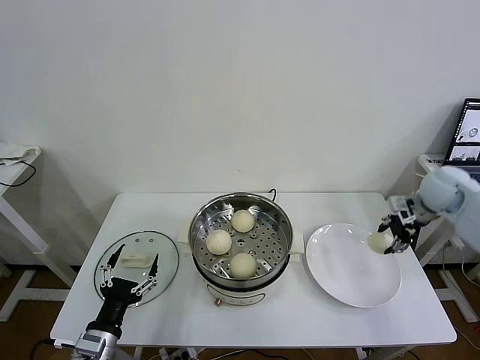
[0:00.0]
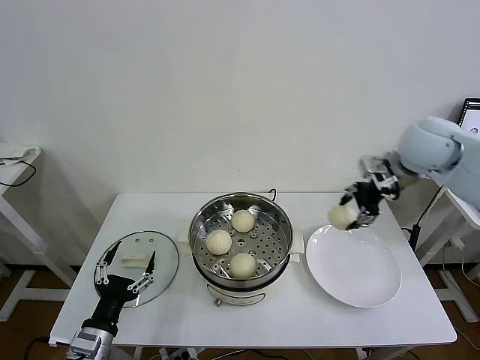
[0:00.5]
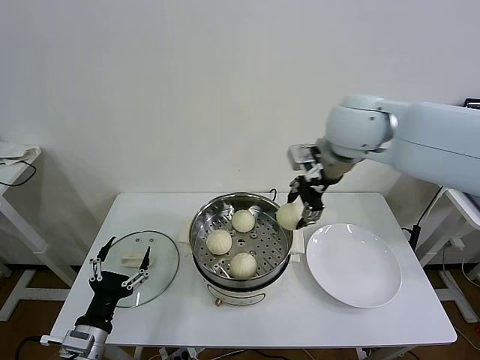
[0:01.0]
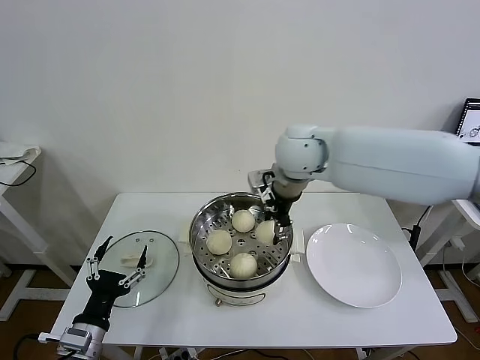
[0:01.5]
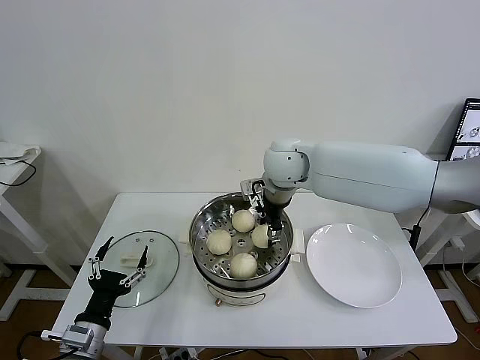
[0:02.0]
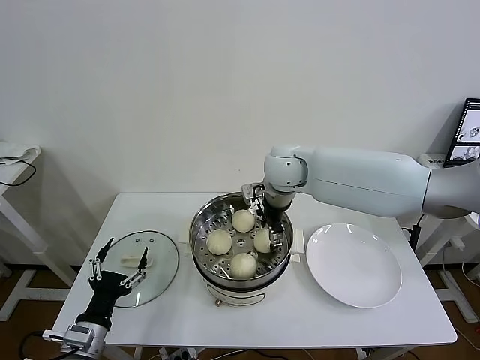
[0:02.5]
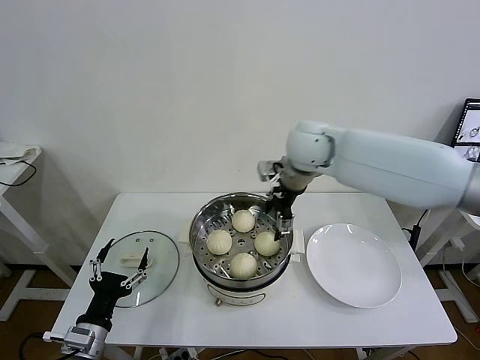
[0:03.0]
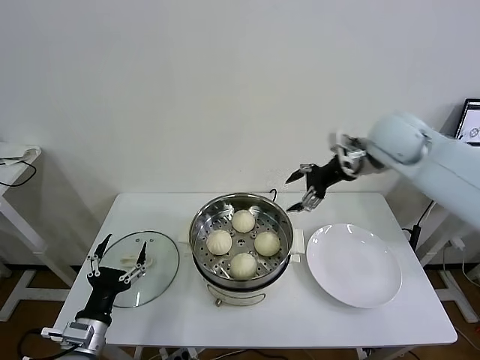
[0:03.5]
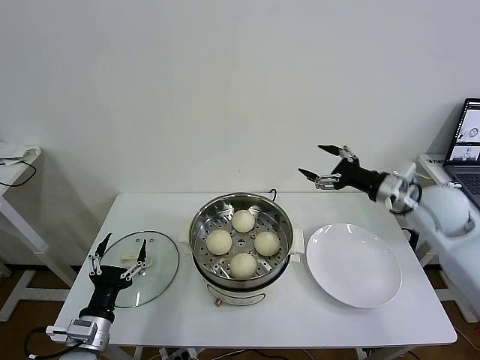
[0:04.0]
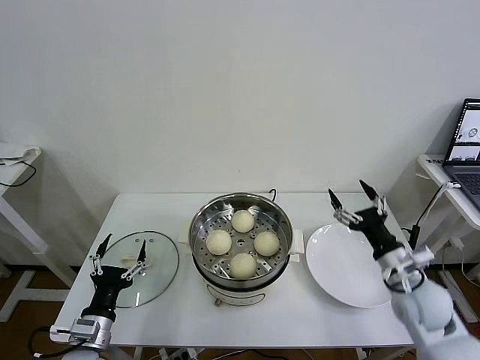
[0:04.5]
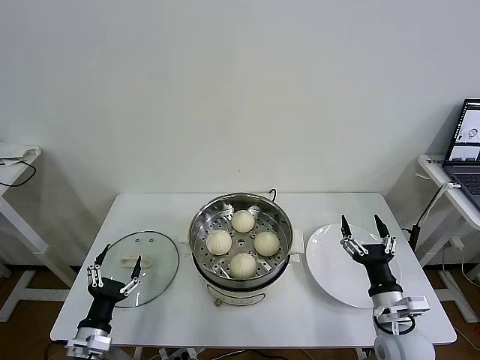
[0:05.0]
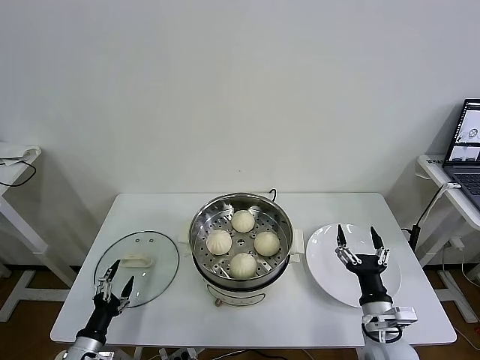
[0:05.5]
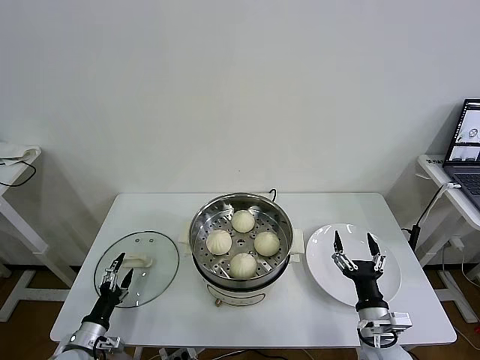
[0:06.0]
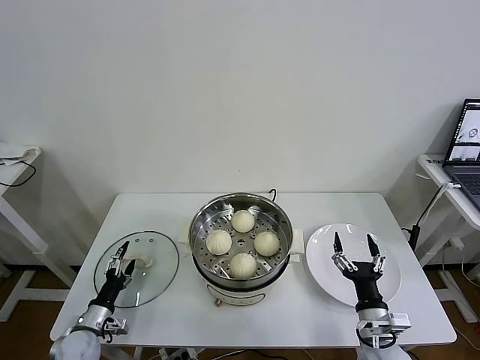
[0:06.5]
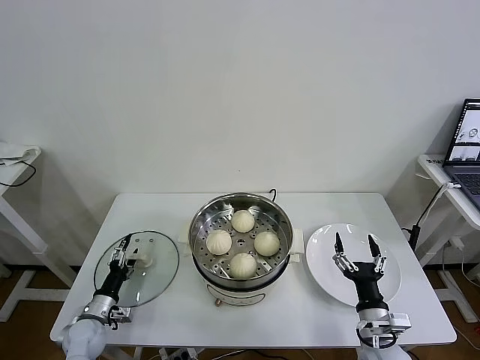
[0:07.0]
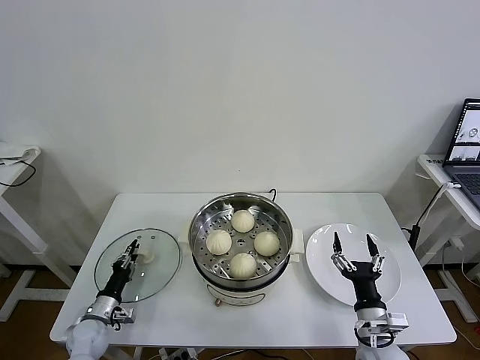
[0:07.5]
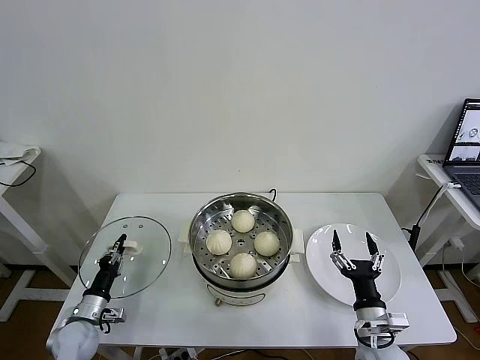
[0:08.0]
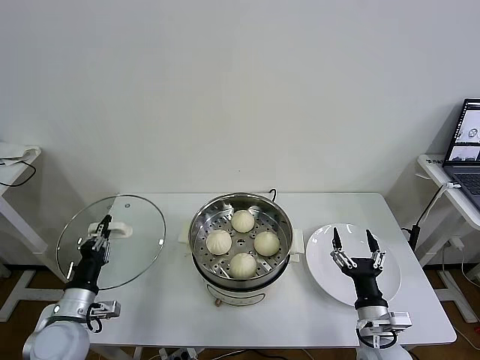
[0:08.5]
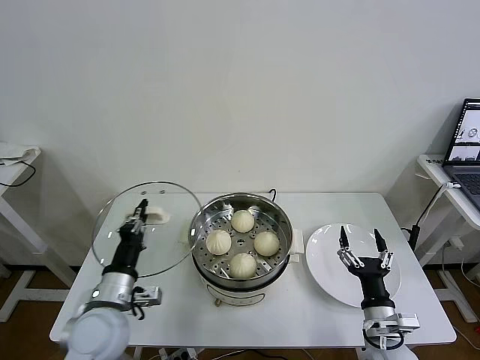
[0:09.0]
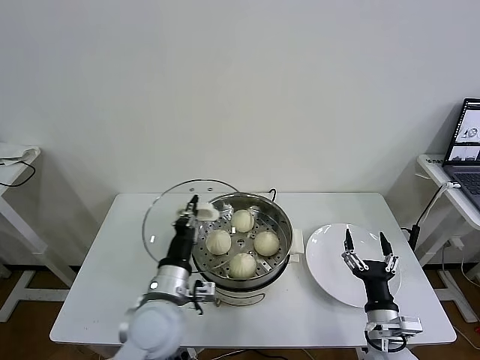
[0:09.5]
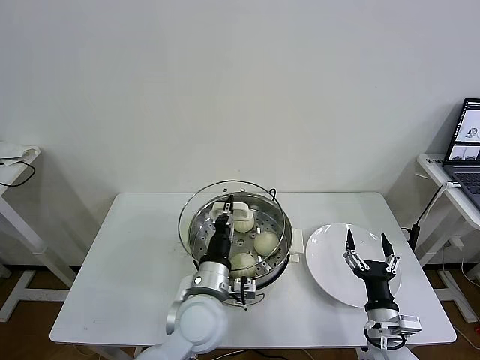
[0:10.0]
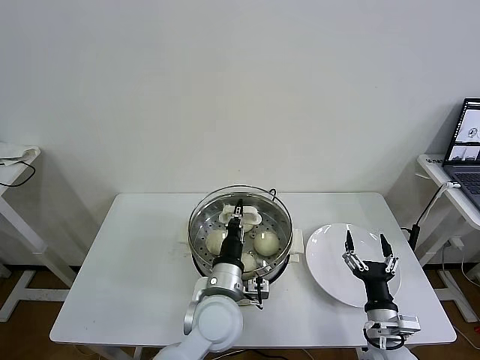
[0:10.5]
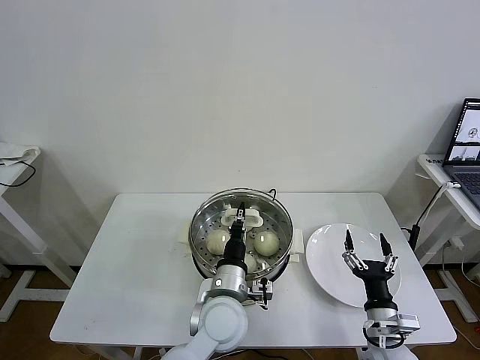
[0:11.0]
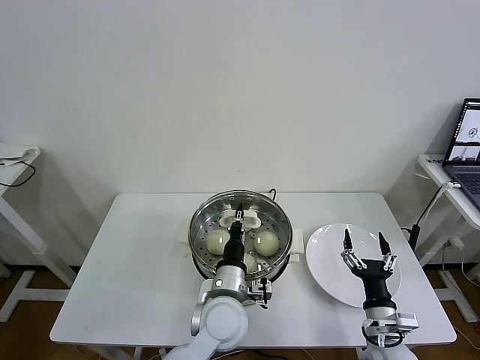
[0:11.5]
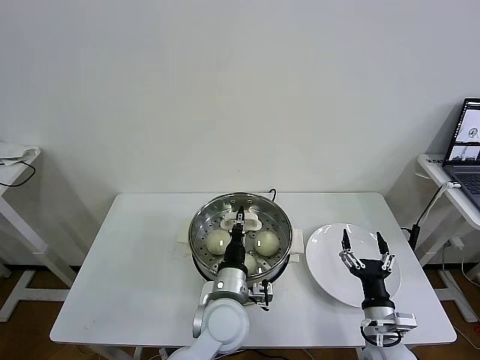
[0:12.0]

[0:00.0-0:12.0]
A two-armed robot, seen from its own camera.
Task of the whole recording: take steamed baozi put them in steamer then cover it.
Step, 0:00.0 to 0:02.5: Place the baozi on the steamer with right gripper.
Step, 0:03.0 to 0:07.5: Grasp the pot lid with left gripper.
0:00.0 to 0:02.0: The right gripper shifts roughly 35 cm to the left.
0:02.0 to 0:04.0: The right gripper shifts about 30 cm to the right, and opens.
0:04.0 to 0:06.0: The left gripper shifts approximately 15 cm downward and to the left, while the right gripper is displaced downward and backward by about 30 cm.
0:06.0 to 0:08.0: The left gripper travels forward by about 5 cm, and closes its fingers.
0:08.0 to 0:10.0: The left gripper shifts approximately 35 cm to the right and upward.
0:10.0 to 0:12.0: The left gripper ends up some 5 cm from where it was.

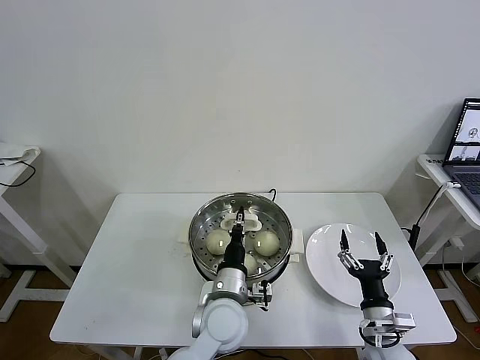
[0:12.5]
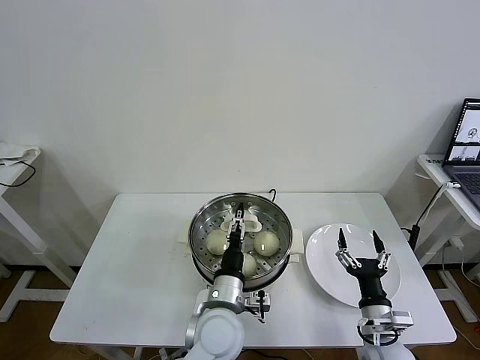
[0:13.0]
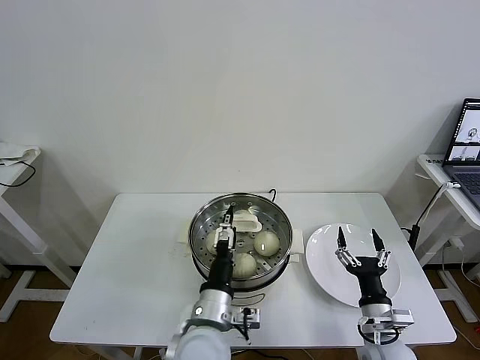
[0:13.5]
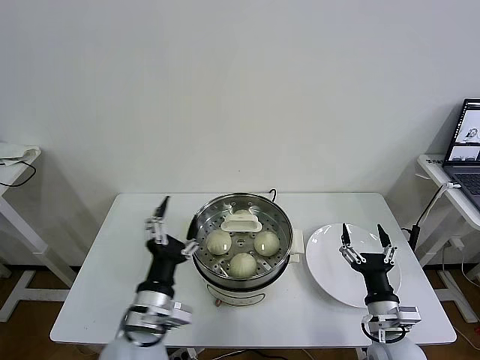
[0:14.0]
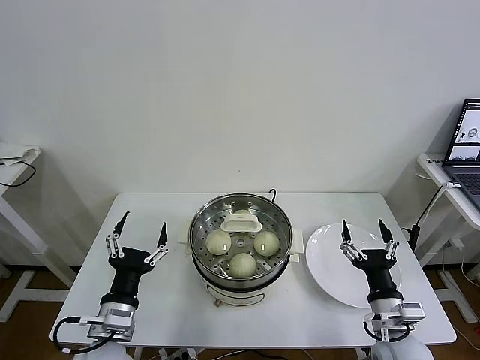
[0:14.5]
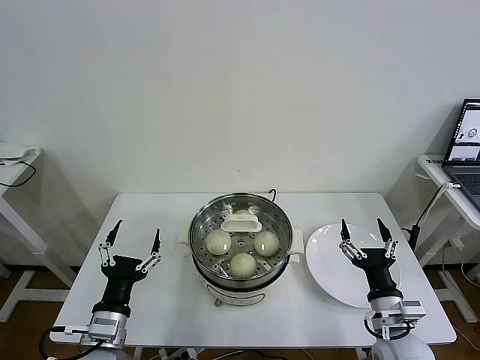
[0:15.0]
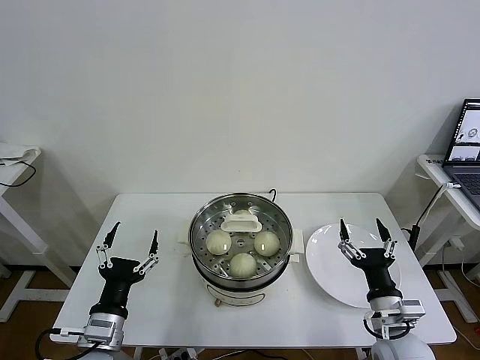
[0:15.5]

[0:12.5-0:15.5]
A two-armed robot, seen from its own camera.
Task of the whole recording: take steamed baozi put them in steamer then cover it.
0:12.5 to 0:14.0: The left gripper is displaced to the left, backward and upward by approximately 15 cm, and opens up.
0:14.0 to 0:15.5: The left gripper heads to the left and downward, covering roughly 10 cm.

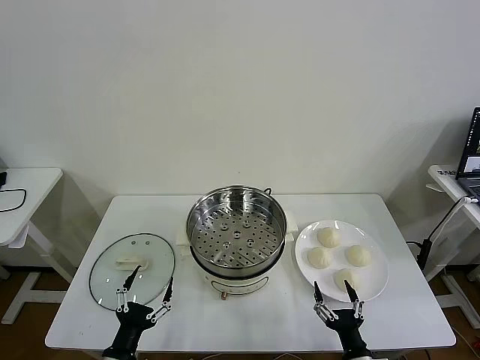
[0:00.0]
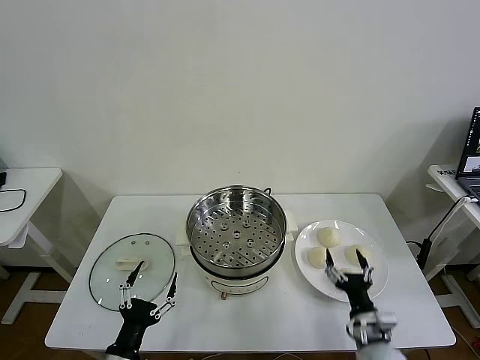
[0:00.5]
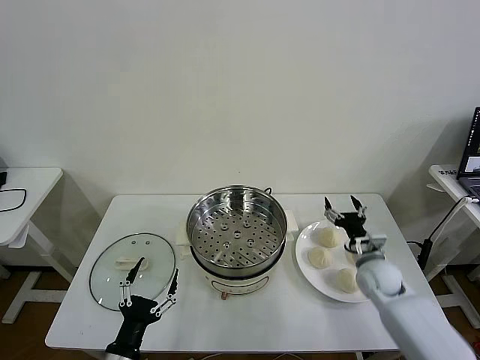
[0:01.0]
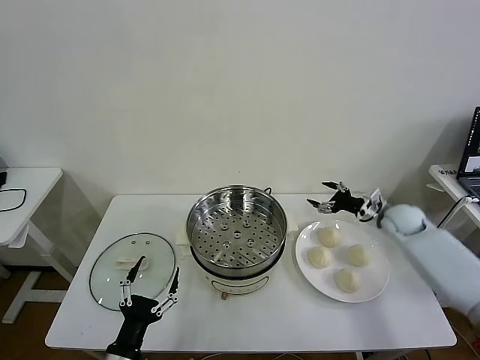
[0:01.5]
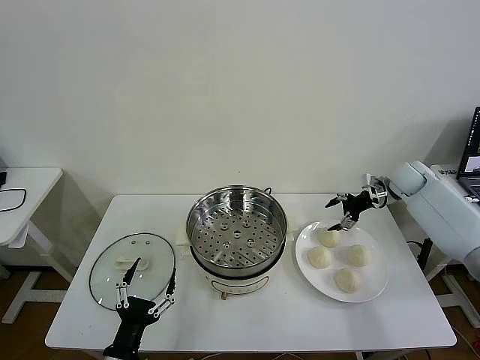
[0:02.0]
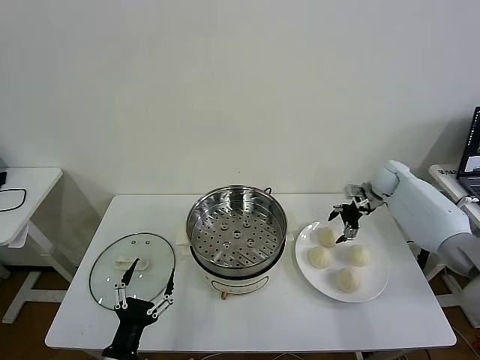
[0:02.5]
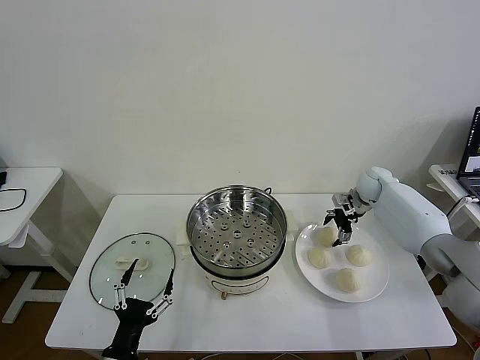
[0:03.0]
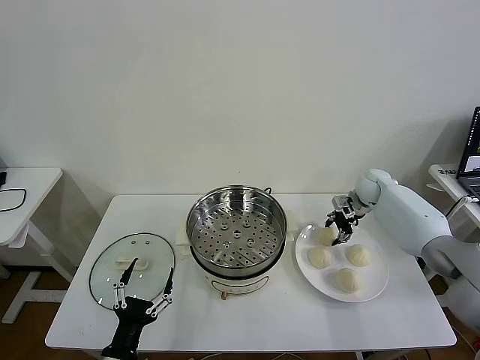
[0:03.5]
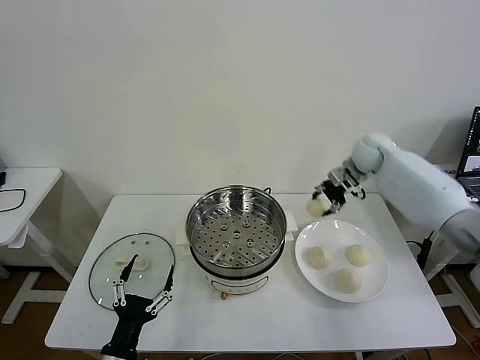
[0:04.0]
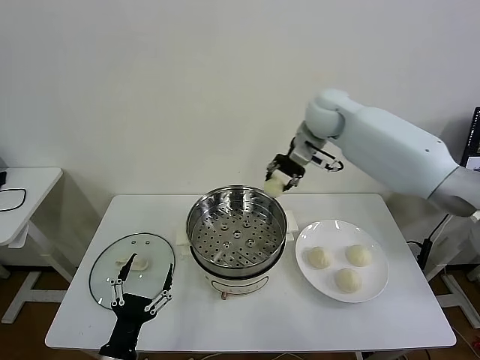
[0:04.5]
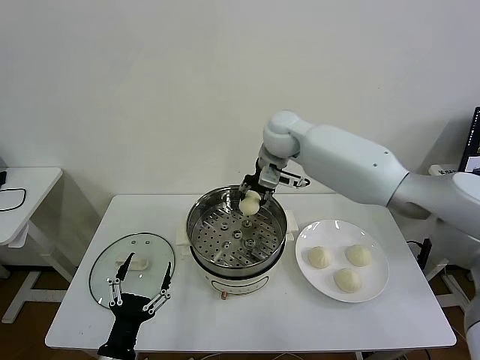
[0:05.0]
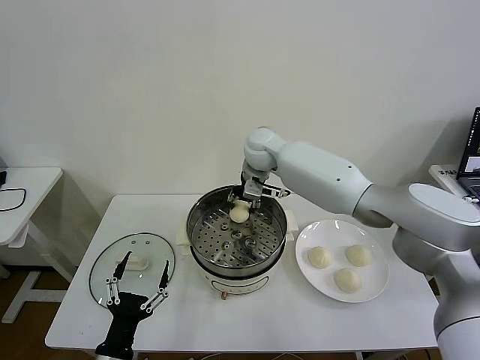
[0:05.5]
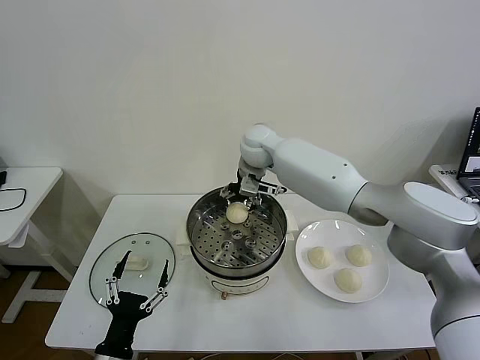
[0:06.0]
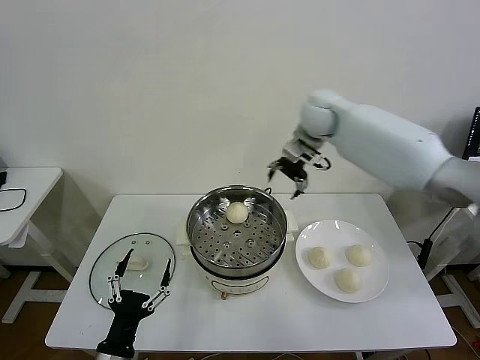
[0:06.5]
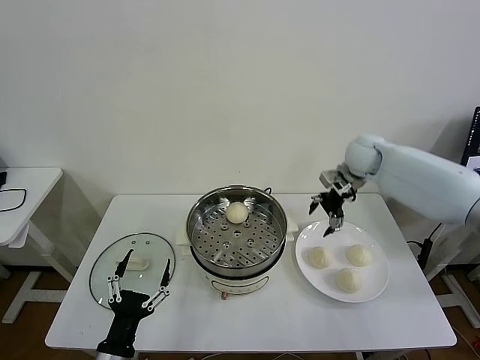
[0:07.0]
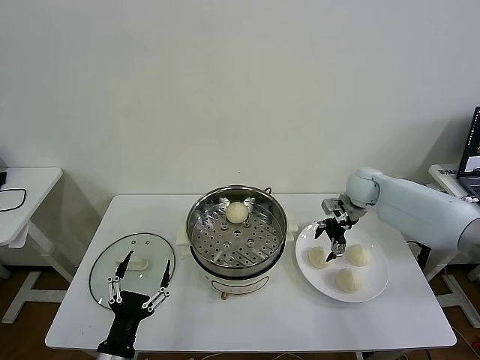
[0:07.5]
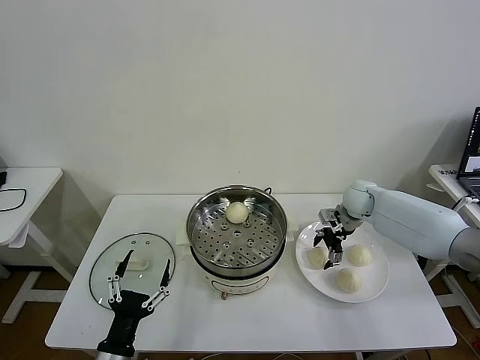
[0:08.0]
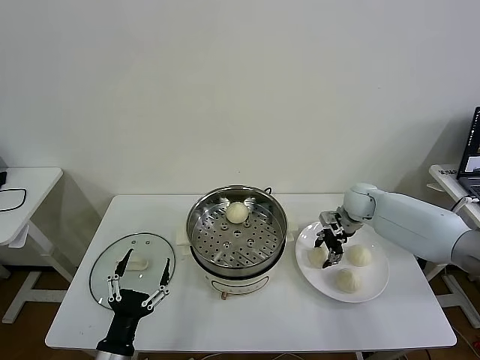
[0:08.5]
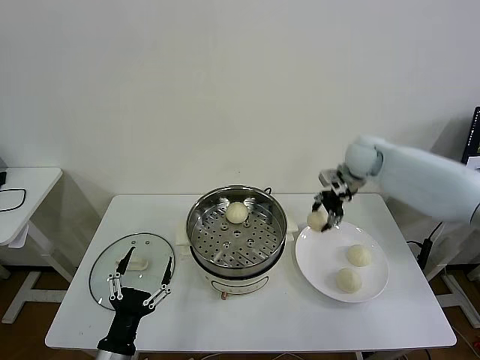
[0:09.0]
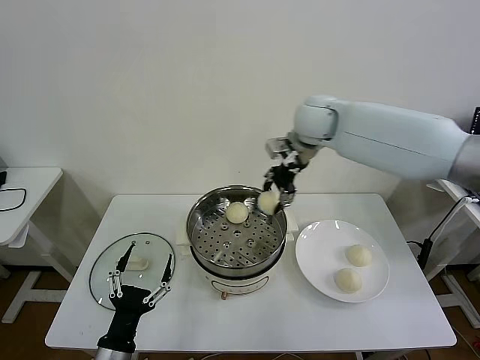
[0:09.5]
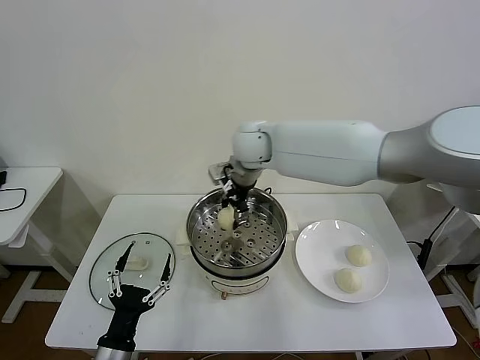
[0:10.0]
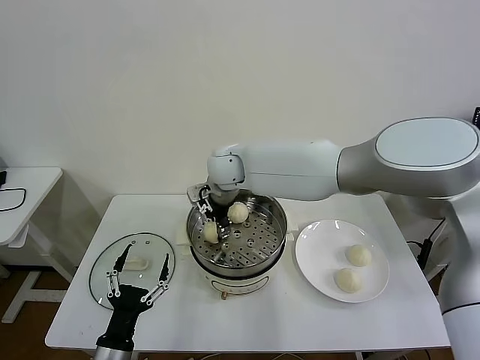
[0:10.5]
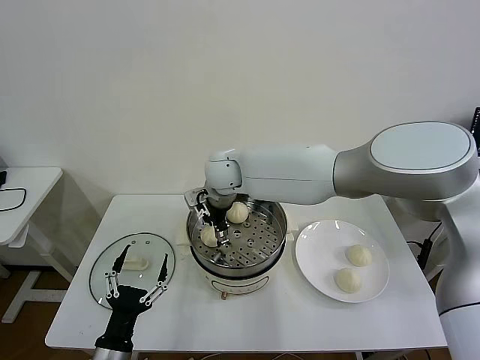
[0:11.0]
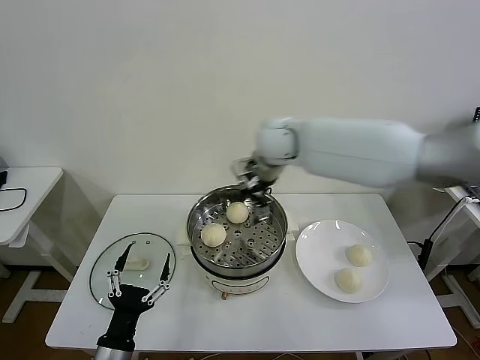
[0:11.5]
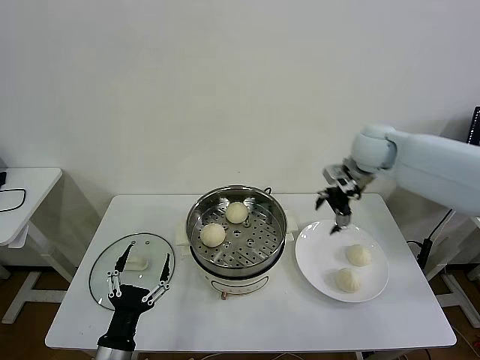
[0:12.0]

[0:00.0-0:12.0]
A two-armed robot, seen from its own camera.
Task of the whole recording: take steamed baozi put them in steamer then cover it.
Step, 0:00.0 to 0:03.5: Grasp the baozi in the plate with right gripper.
Step, 0:04.0 to 0:06.0: Place the baozi on the steamer with right gripper.
Step, 0:06.5 to 0:08.0: Grasp the baozi in the plate with right gripper.
Step, 0:09.0 to 0:11.0: Place the baozi on the steamer with right gripper.
0:02.0 to 0:04.0: The right gripper goes approximately 15 cm to the left and upward, and closes up.
0:04.0 to 0:06.0: The right gripper shifts about 25 cm to the left, and opens.
0:06.0 to 0:08.0: The right gripper is displaced to the right and downward by approximately 30 cm.
0:08.0 to 0:10.0: The right gripper is displaced to the left and upward by about 35 cm, and closes its fingers.
0:10.0 to 0:12.0: The right gripper heads to the right, covering about 30 cm, and opens up.
